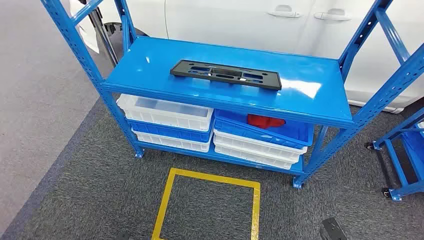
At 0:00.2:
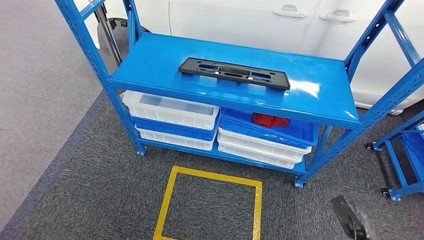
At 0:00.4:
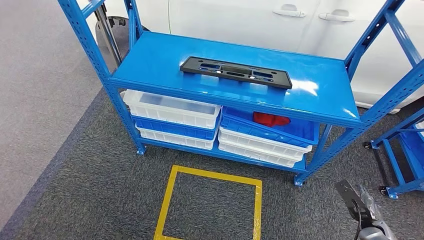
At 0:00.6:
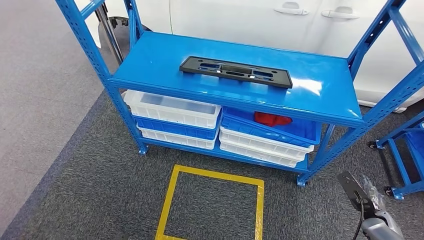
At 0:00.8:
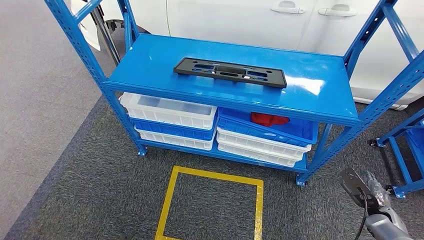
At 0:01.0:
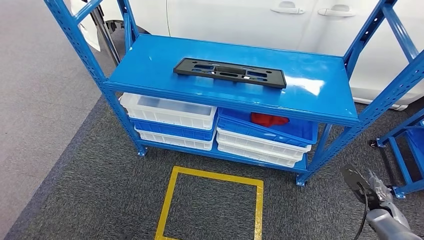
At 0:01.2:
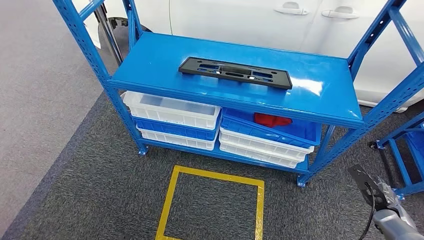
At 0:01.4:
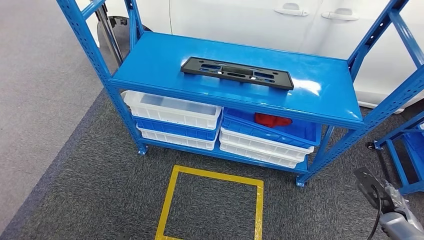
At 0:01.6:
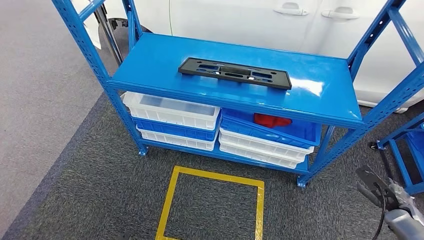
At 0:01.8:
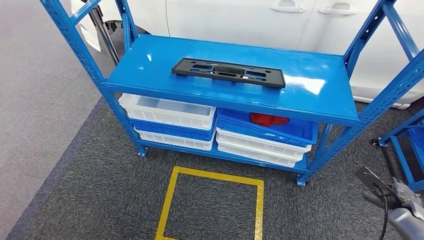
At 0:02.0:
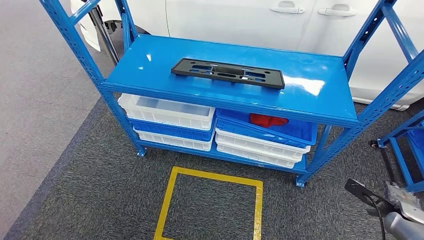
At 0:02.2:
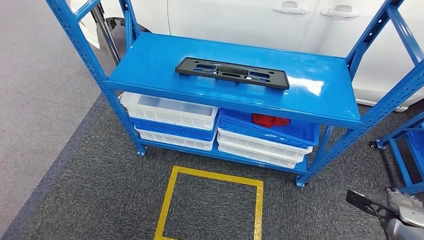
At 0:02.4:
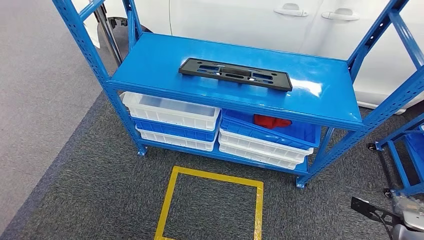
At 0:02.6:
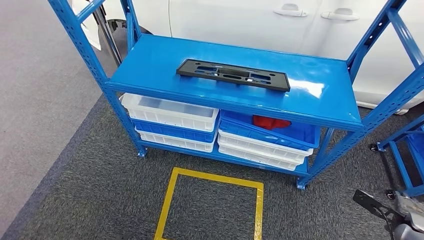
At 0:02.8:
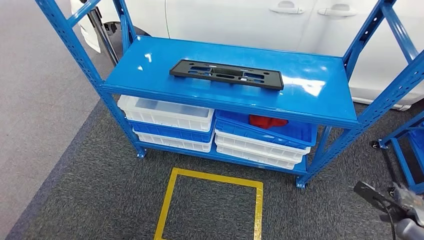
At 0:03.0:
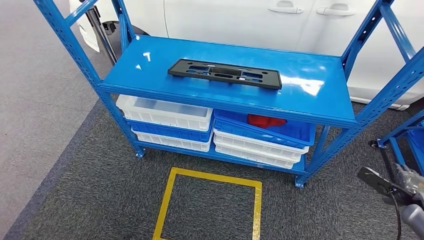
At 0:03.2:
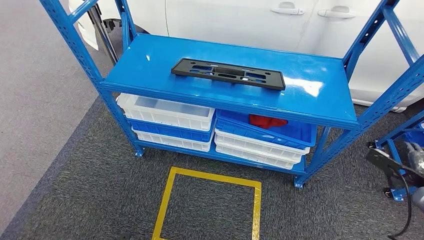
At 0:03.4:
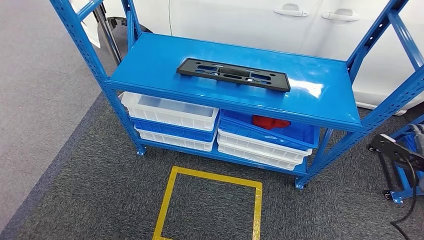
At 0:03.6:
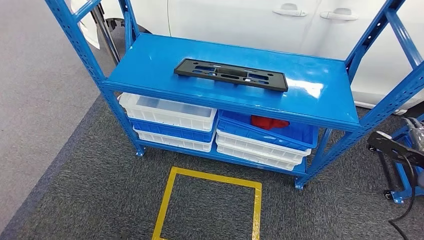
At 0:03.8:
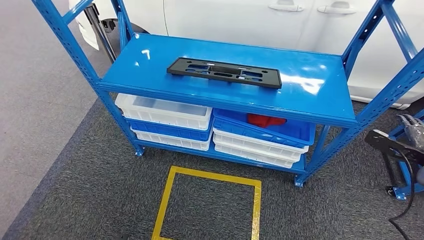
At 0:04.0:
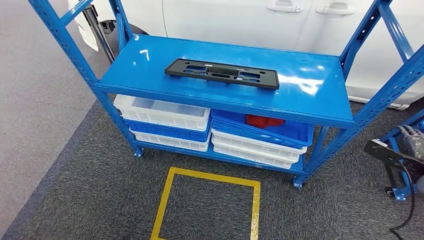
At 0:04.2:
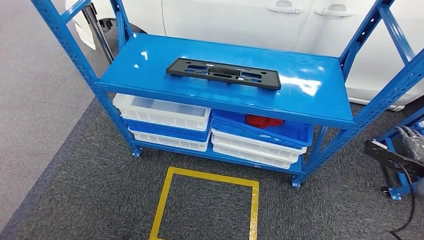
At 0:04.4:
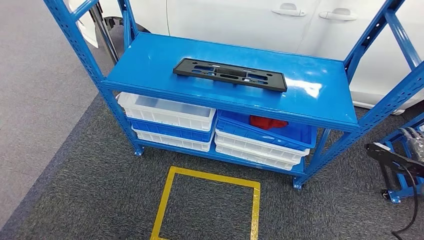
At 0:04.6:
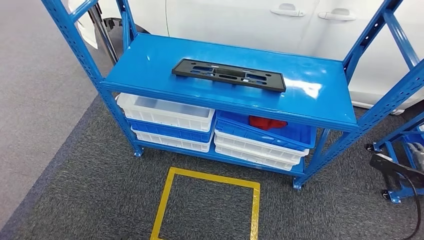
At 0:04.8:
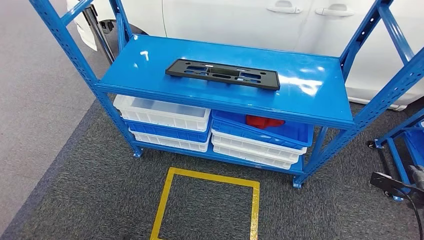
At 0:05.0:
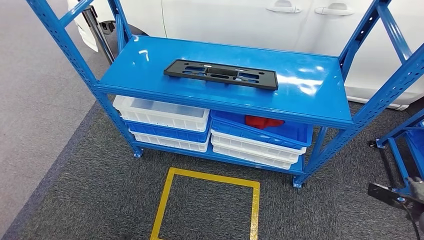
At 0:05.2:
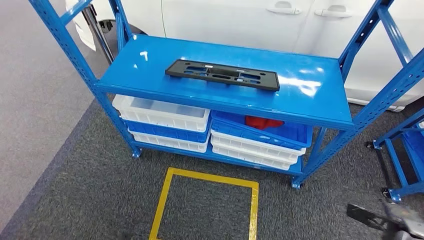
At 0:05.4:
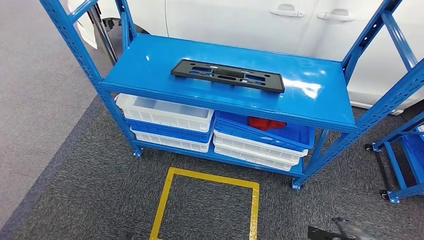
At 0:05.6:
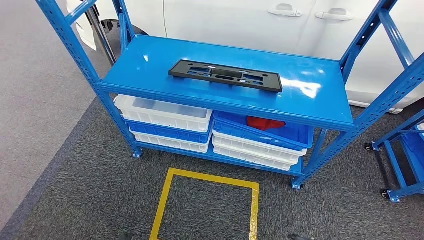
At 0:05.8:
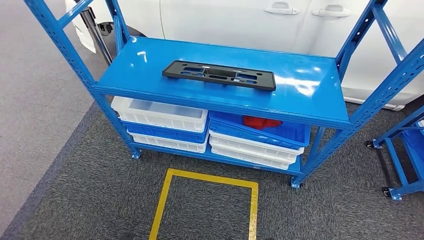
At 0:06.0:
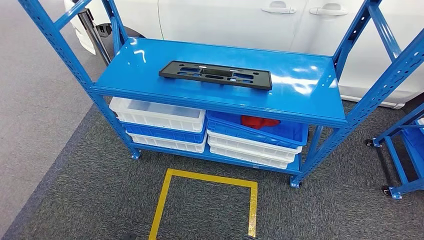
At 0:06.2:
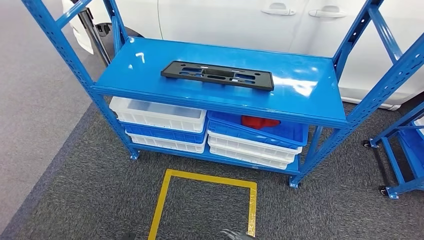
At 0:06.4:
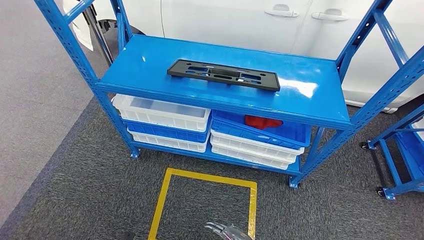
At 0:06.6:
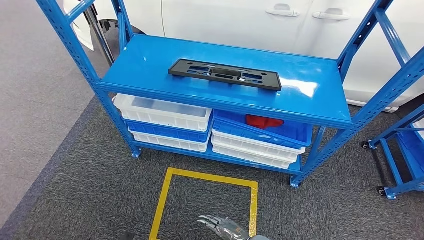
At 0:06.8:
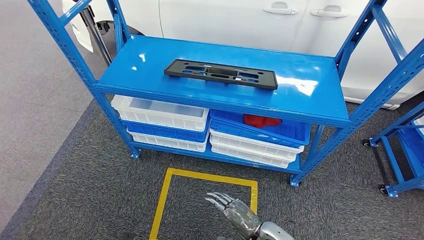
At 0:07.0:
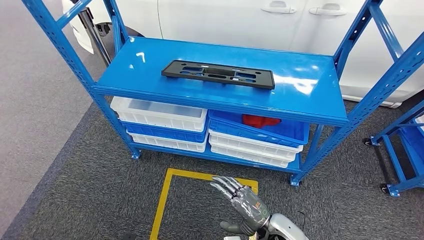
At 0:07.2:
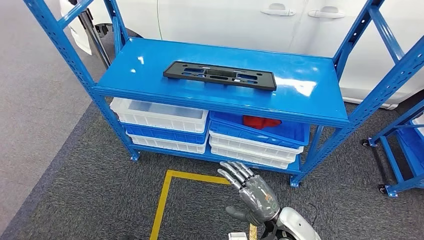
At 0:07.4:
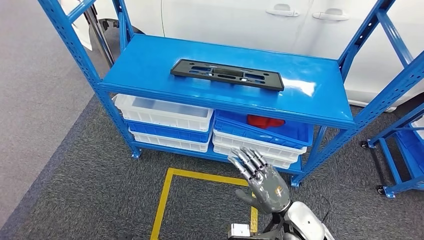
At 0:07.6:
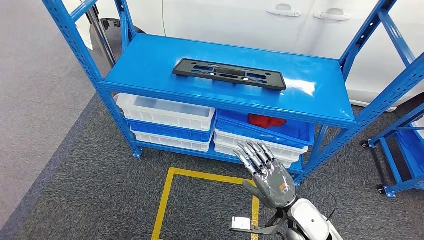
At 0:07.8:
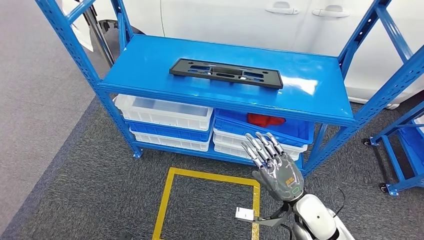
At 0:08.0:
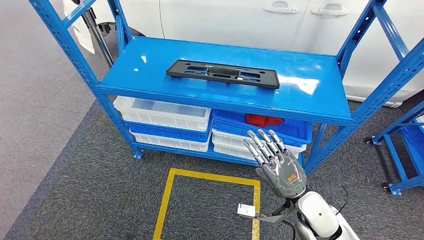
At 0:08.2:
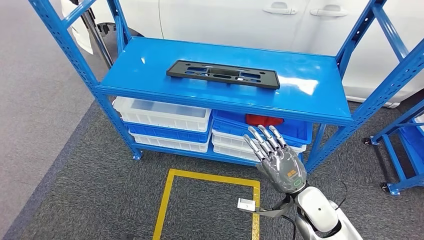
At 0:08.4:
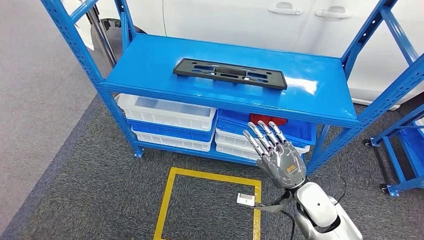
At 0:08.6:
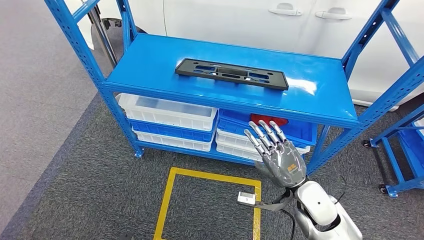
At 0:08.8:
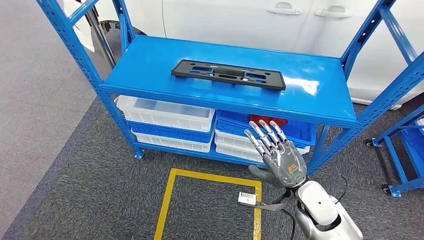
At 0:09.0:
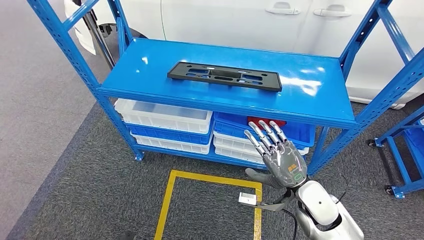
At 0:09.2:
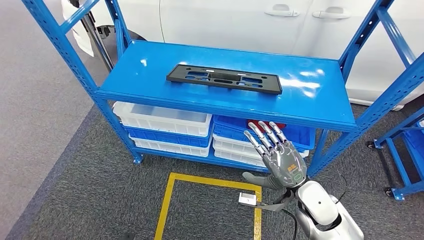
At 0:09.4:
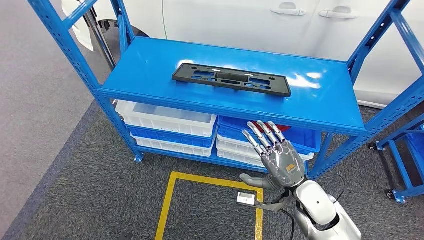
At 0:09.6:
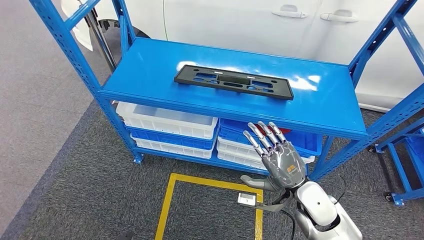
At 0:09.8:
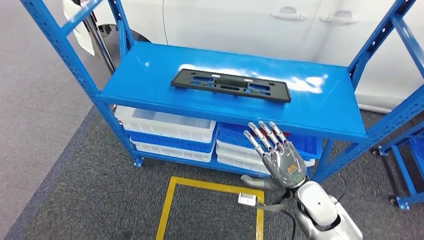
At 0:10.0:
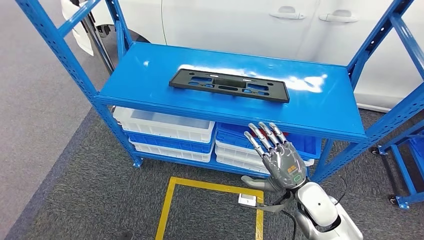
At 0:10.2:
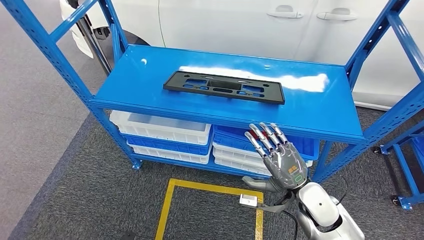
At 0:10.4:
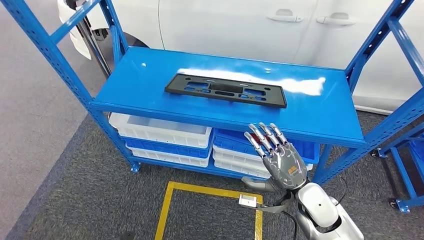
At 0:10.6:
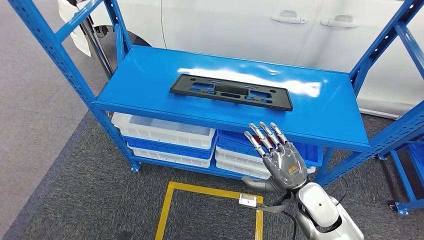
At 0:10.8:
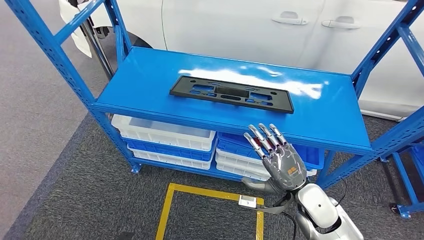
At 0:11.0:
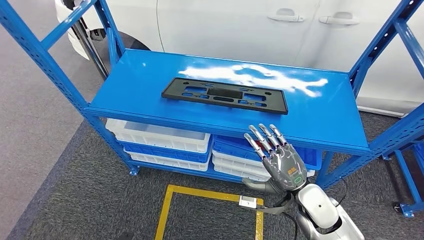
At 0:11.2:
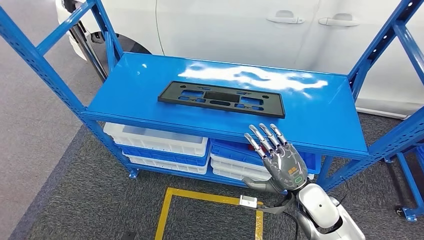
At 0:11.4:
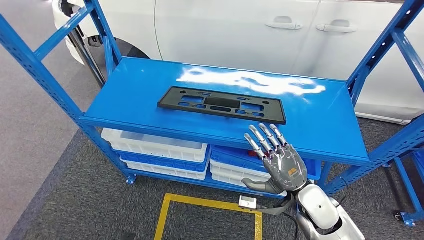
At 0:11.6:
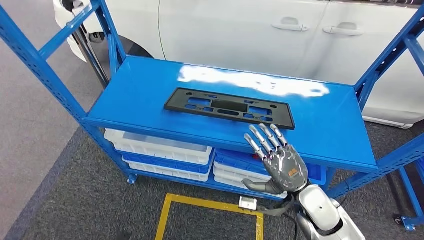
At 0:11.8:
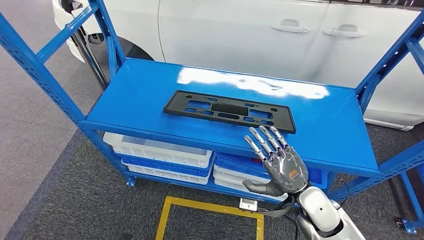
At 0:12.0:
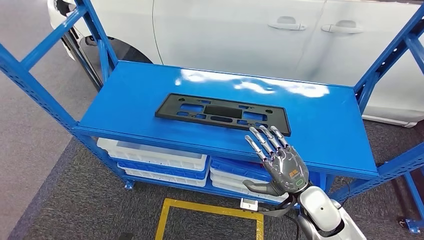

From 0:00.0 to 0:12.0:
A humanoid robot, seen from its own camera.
From 0:03.0 to 0:04.4: The right hand travels upward by roughly 5 cm.

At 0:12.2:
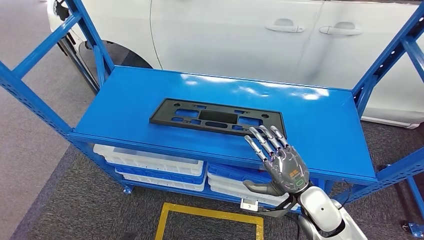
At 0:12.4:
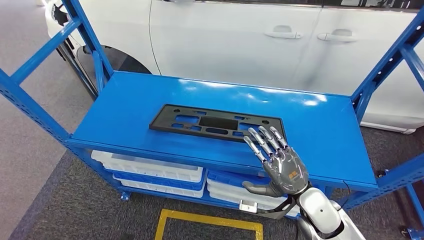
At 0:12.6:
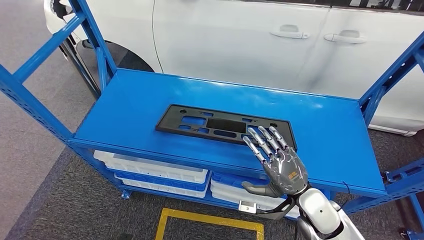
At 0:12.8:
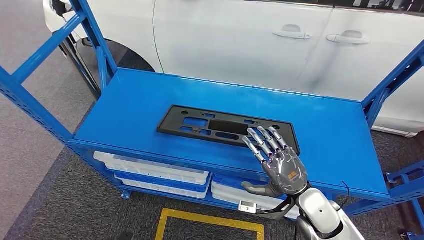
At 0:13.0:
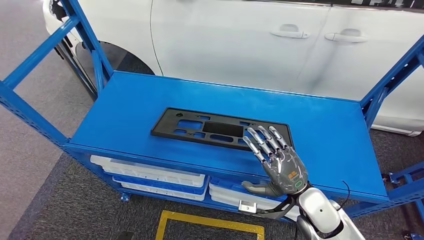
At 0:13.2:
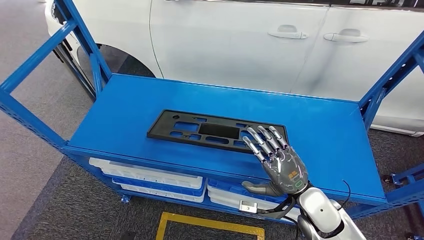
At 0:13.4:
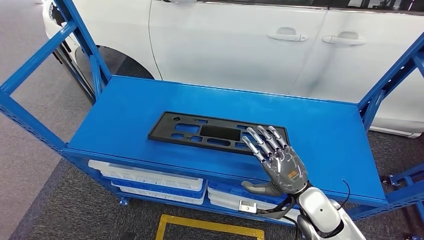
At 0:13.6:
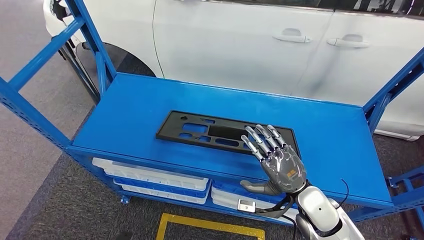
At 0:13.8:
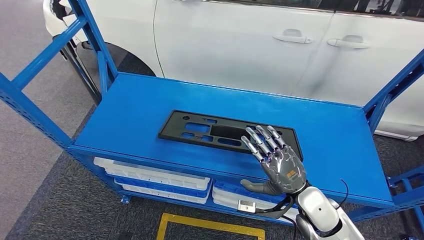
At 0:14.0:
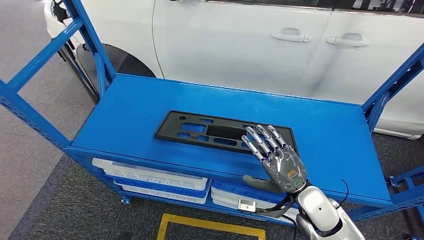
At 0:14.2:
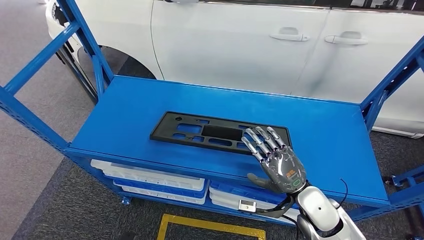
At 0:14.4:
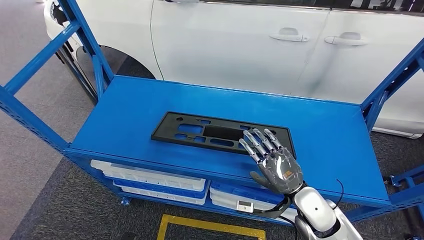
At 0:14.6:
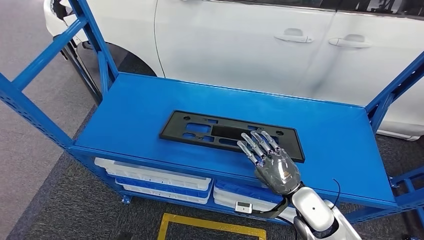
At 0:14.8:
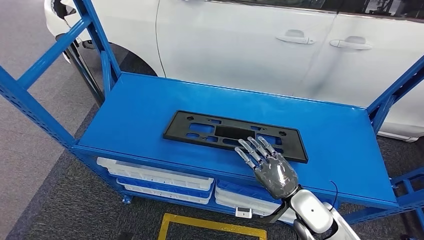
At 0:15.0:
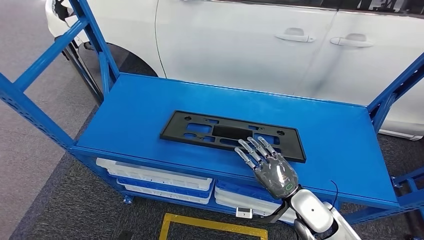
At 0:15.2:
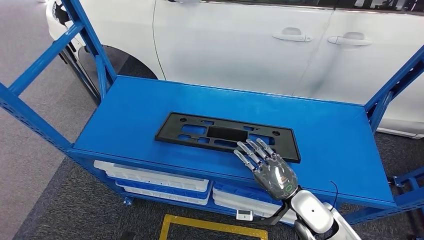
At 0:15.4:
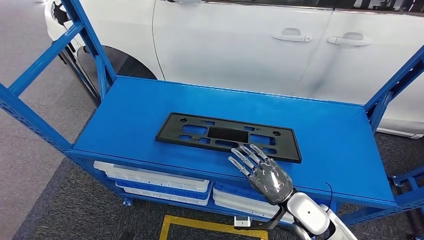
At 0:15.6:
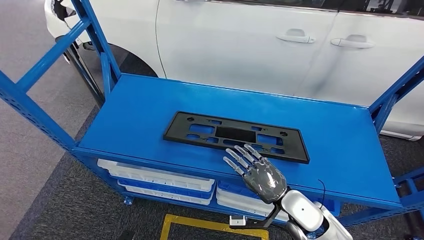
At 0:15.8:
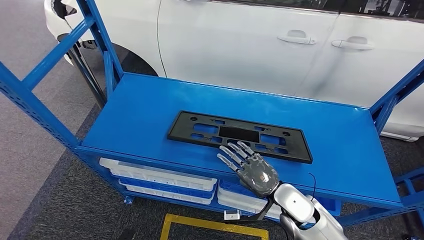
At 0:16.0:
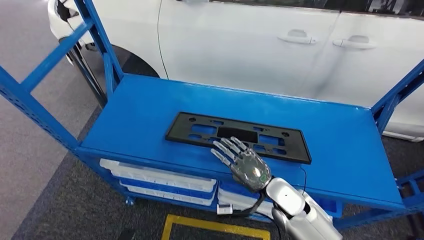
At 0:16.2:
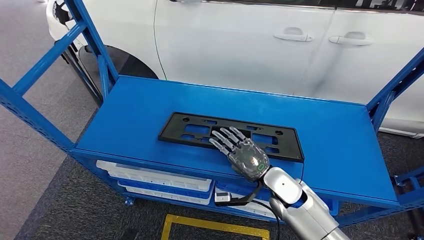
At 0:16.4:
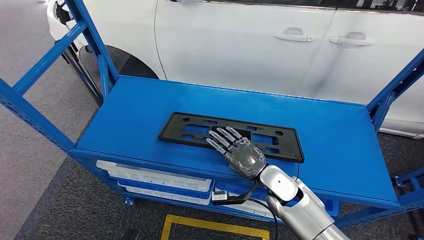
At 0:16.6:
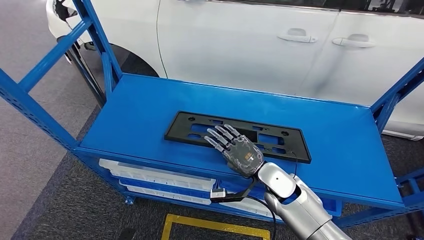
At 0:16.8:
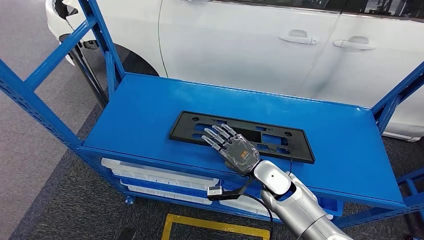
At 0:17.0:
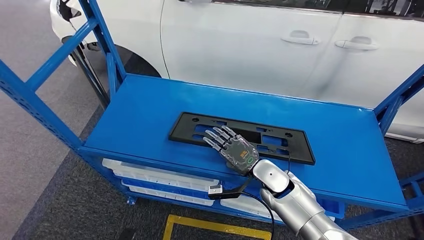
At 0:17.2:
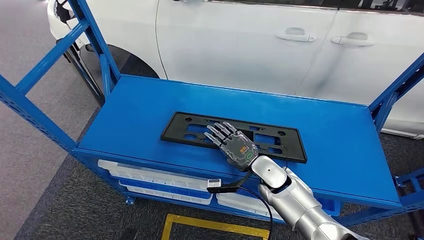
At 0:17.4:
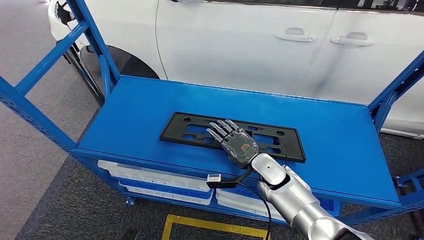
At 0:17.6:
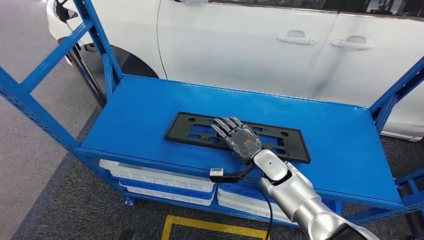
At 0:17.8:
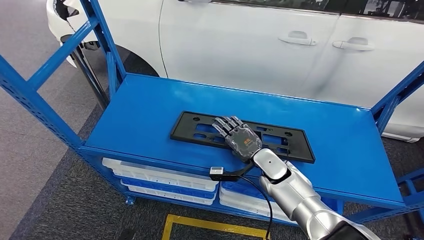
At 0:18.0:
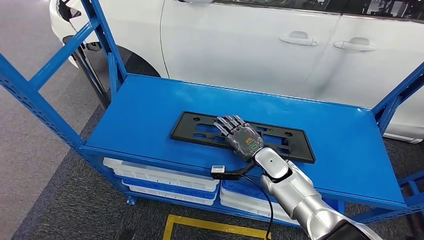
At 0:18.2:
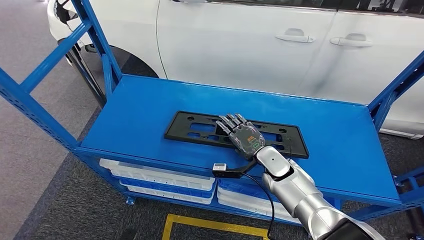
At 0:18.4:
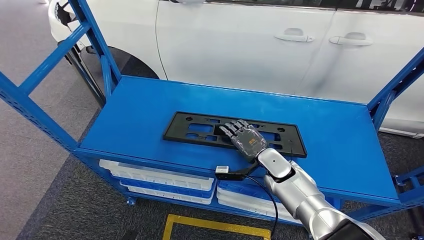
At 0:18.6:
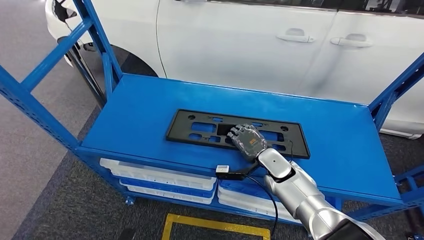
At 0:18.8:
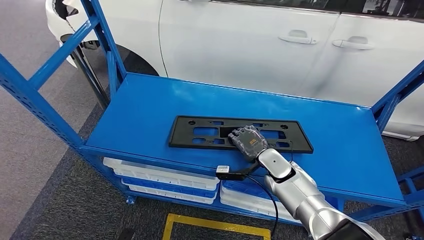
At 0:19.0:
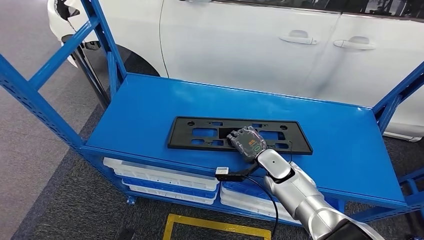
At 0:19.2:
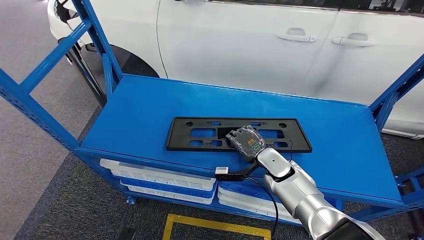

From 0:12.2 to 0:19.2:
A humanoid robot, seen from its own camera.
From 0:13.6 to 0:15.0: The hands make only small movements.
From 0:15.0 to 0:16.4: The right hand travels forward and to the left by approximately 10 cm.
From 0:17.8 to 0:19.2: The hands move only a little.
